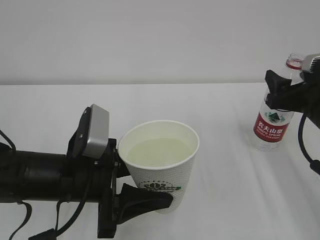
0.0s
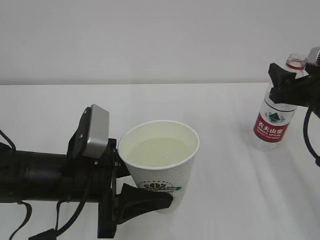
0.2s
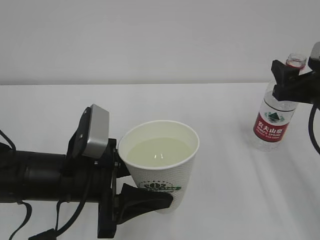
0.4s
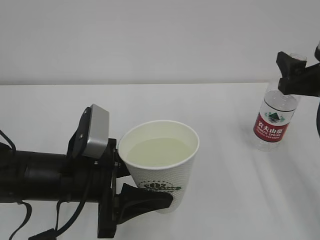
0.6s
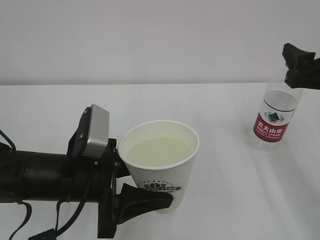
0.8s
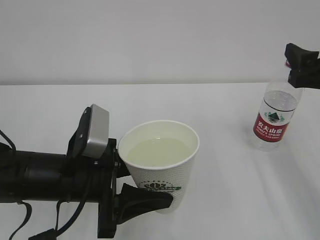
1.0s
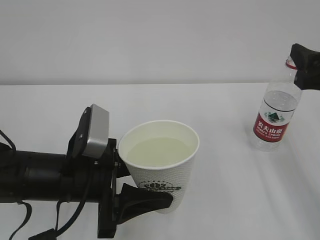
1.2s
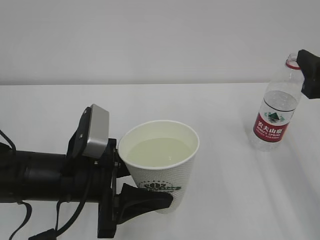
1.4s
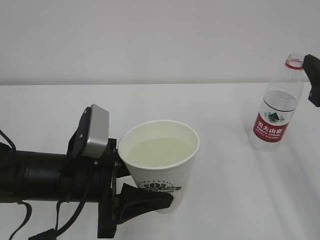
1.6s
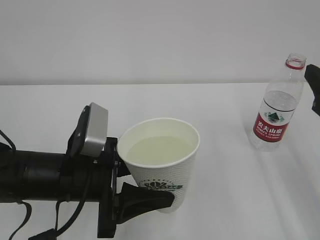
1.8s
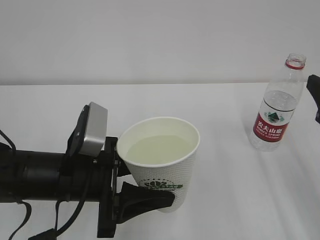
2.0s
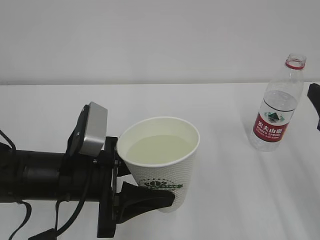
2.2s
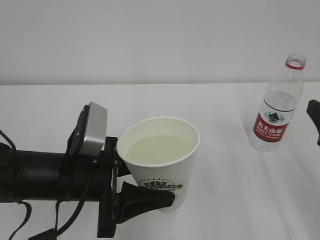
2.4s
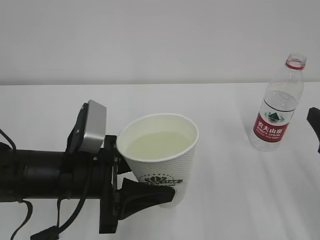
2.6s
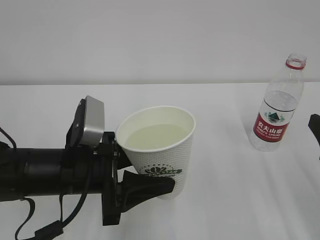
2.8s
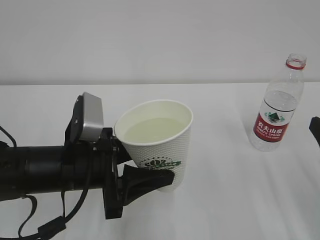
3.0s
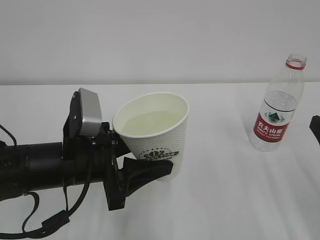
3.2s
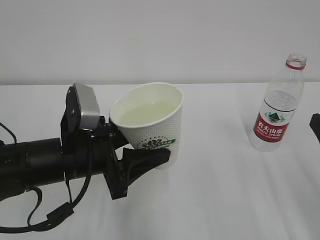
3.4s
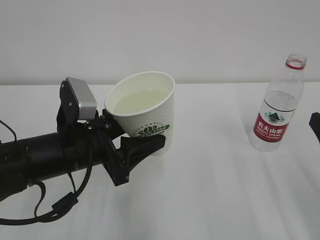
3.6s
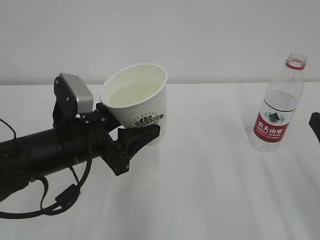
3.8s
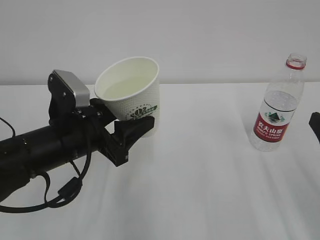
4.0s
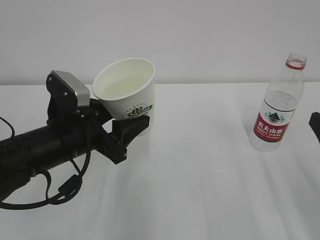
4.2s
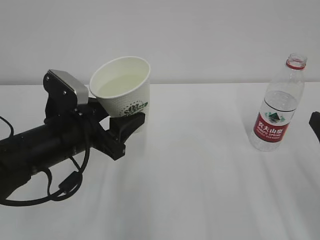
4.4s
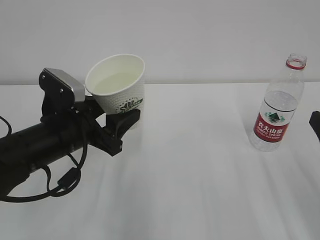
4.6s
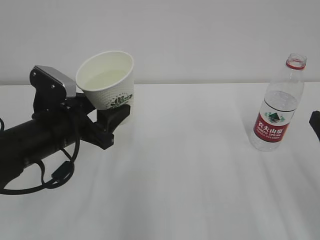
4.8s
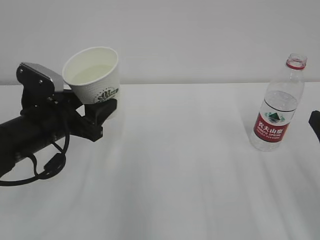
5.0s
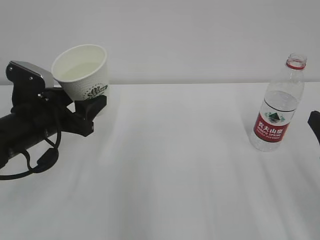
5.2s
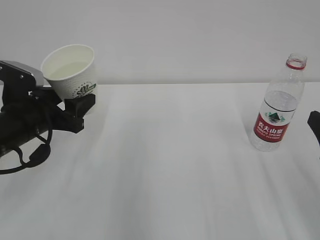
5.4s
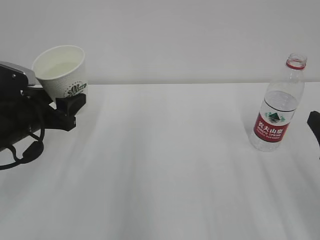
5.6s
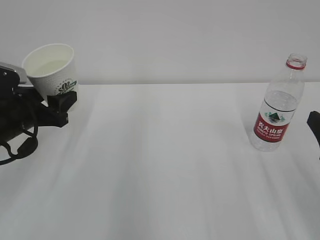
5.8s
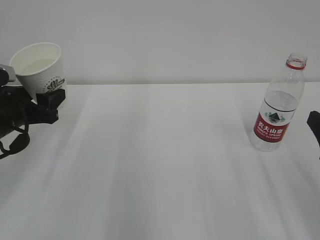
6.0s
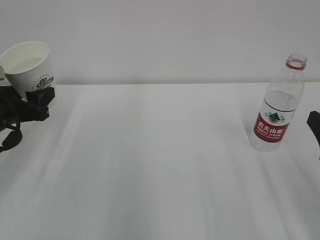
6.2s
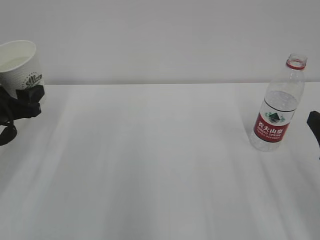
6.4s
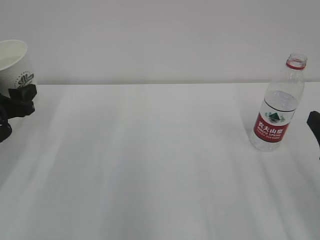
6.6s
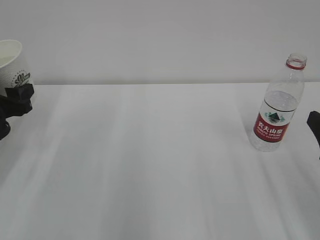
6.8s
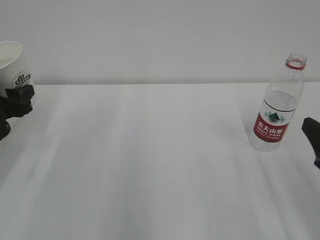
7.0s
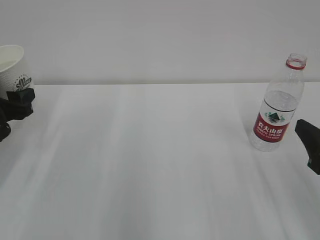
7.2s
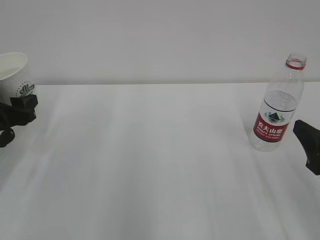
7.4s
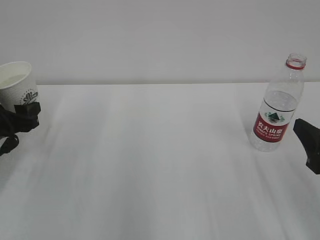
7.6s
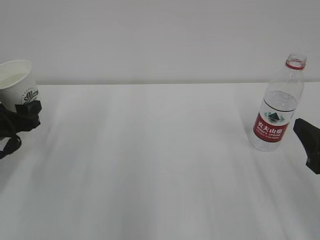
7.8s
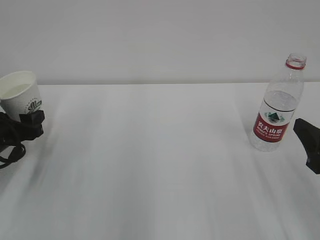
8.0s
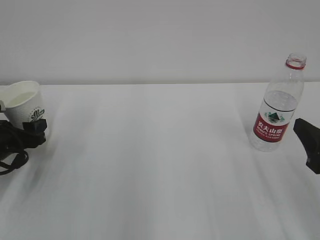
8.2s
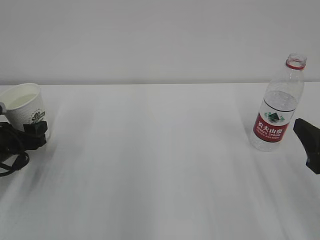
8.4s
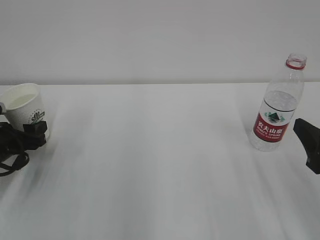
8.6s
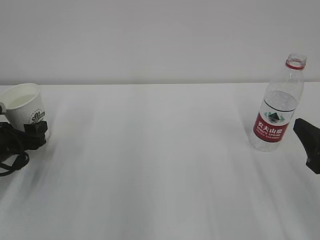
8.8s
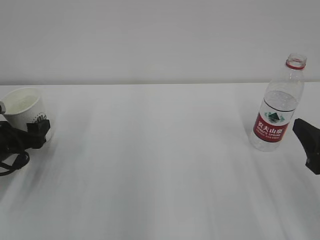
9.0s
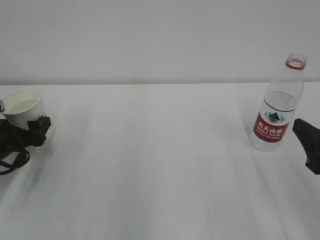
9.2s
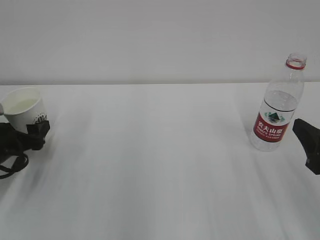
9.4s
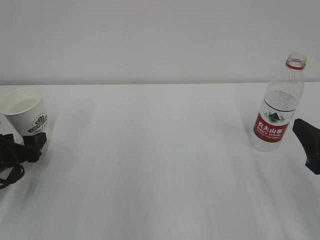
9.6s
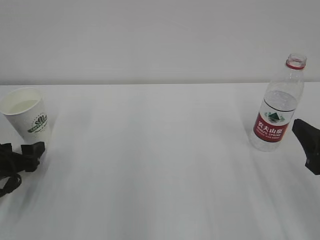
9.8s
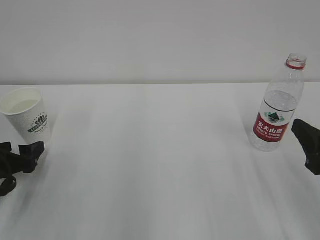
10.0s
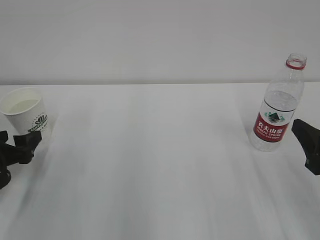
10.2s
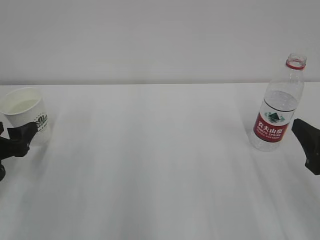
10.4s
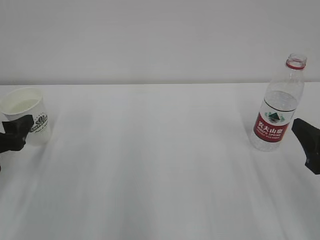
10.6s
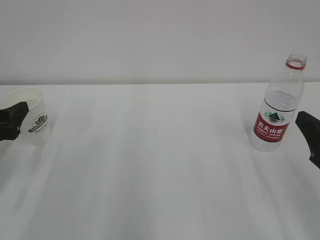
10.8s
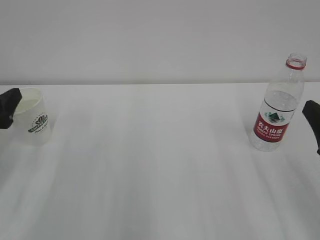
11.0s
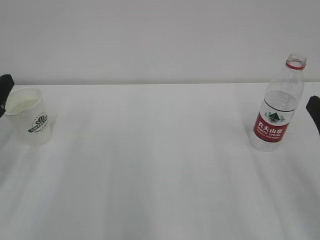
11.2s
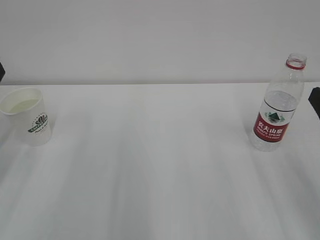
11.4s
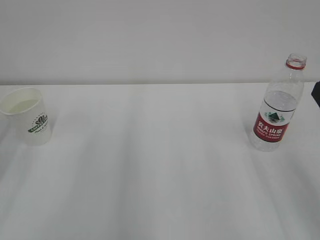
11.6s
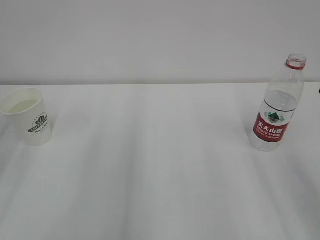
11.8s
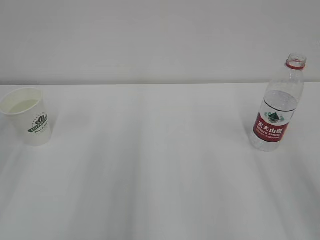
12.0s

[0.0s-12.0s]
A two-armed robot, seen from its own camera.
0.0s to 1.6s: The right gripper goes roughly 10 cm backward and upward.
1.6s to 3.0s: The right gripper is displaced backward and downward by some 10 cm.
4.4s to 6.0s: The left gripper moves to the left and forward, some 15 cm.
6.0s to 7.6s: The left gripper moves approximately 5 cm.
7.6s to 9.0s: The left gripper opens its fingers.
9.0s to 10.4s: The left gripper is displaced backward by about 5 cm.
10.4s to 12.0s: The left gripper moves upward and backward, about 20 cm; the right gripper goes approximately 5 cm upward.

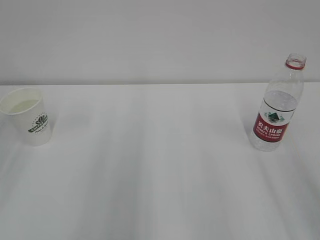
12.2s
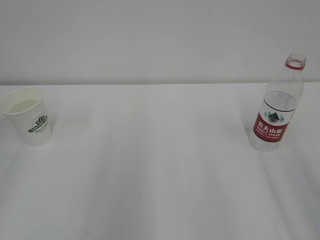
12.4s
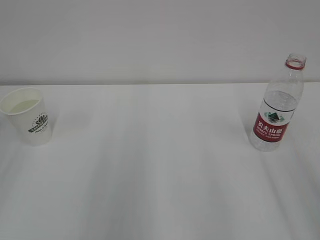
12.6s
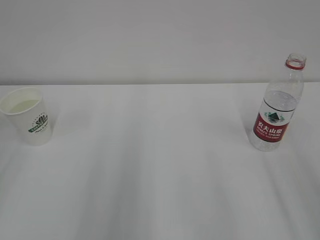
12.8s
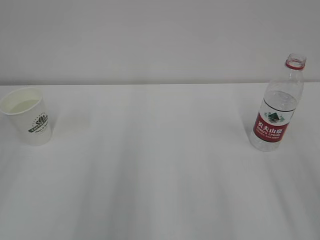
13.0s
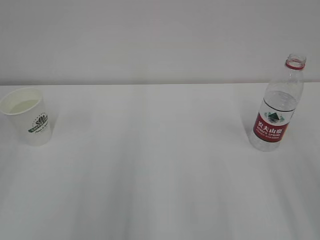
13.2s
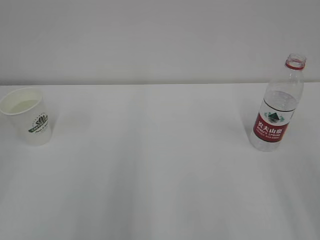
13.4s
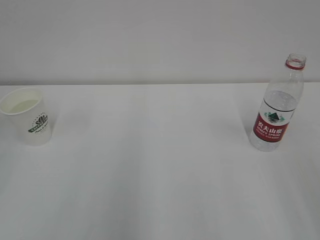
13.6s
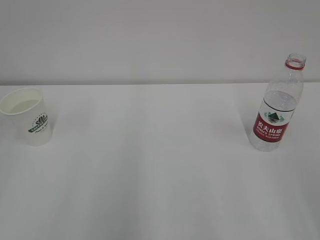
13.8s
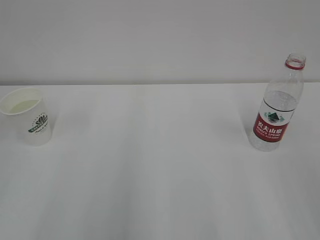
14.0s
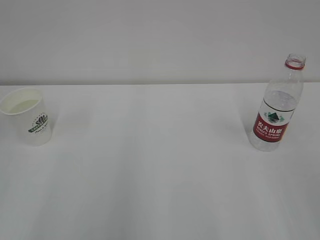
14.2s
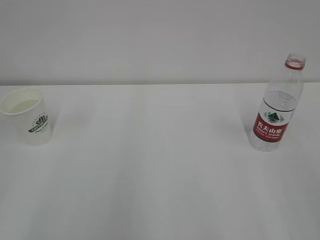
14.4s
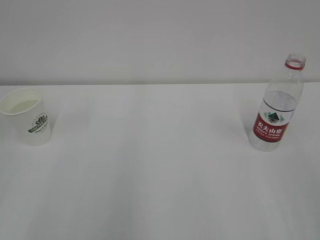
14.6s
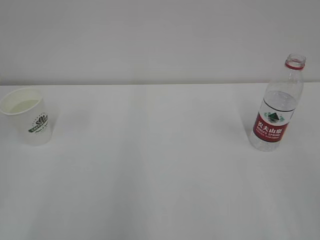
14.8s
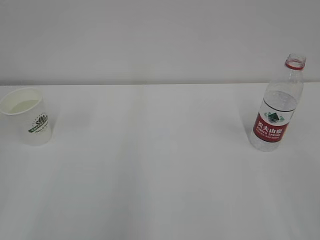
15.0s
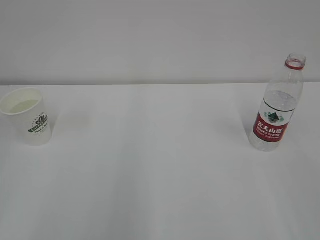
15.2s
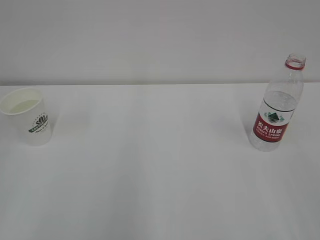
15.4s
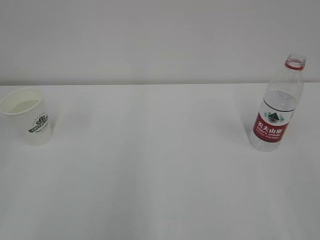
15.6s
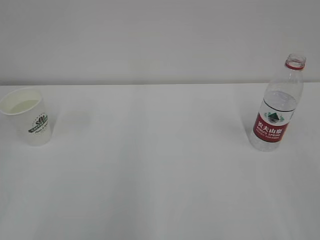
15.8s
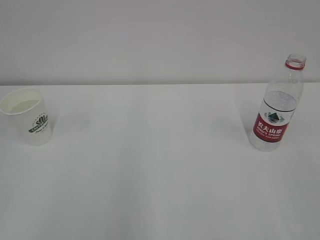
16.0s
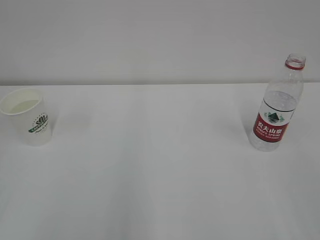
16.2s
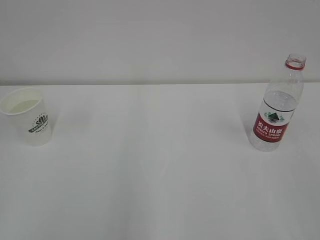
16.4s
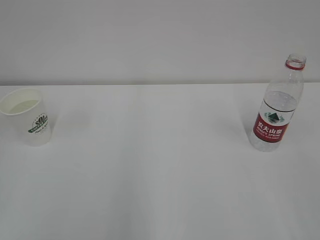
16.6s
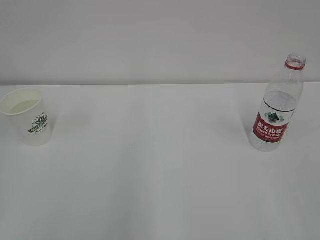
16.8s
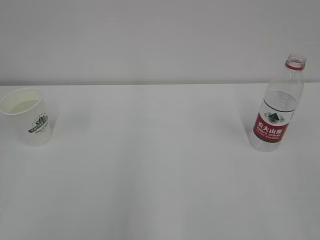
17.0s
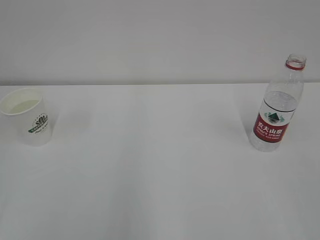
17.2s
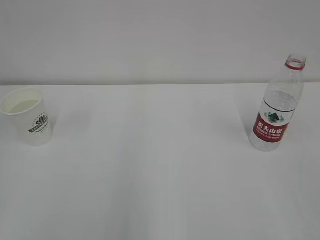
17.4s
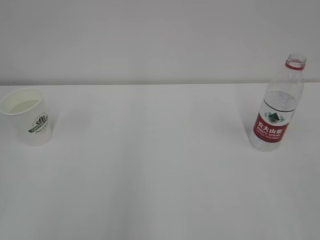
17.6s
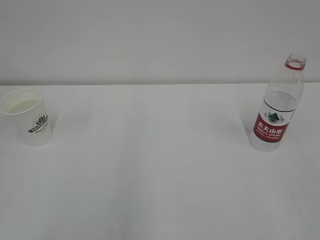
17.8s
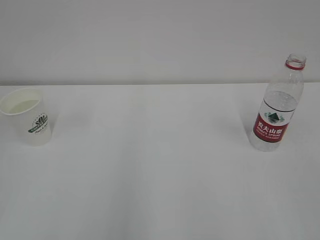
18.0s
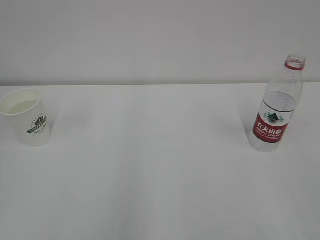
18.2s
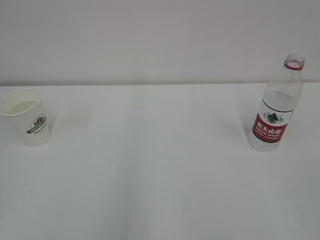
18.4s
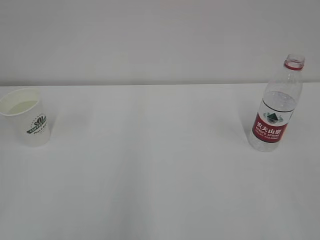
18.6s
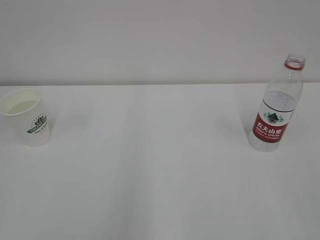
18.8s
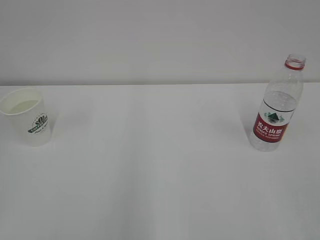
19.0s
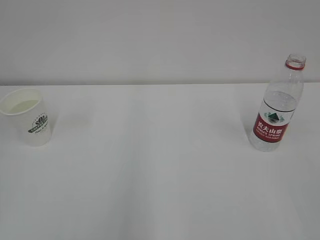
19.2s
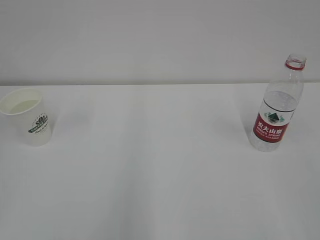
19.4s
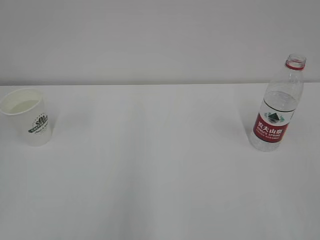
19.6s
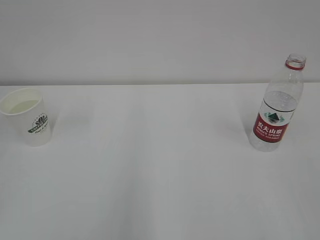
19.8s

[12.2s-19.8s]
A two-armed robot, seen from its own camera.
16.8s to 19.8s: Both grippers stay about where they are.

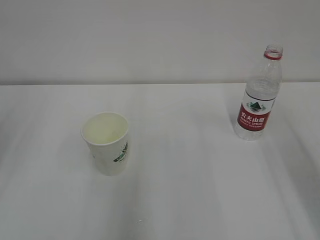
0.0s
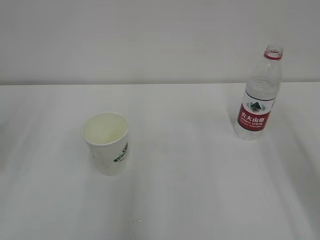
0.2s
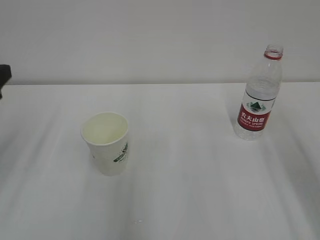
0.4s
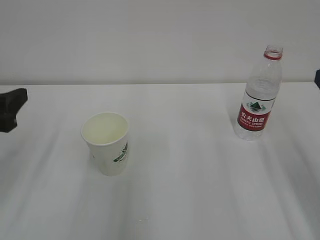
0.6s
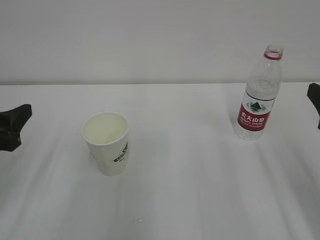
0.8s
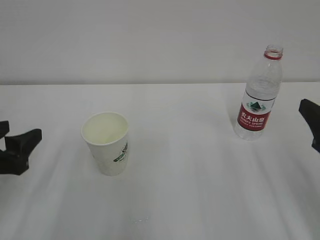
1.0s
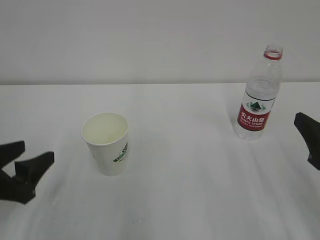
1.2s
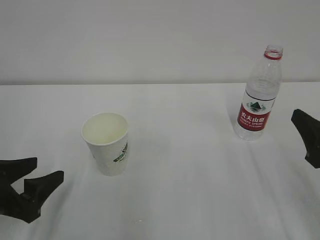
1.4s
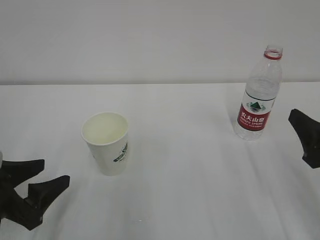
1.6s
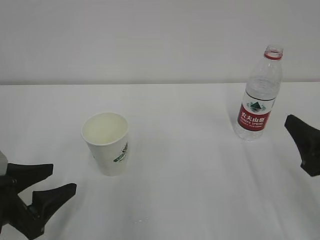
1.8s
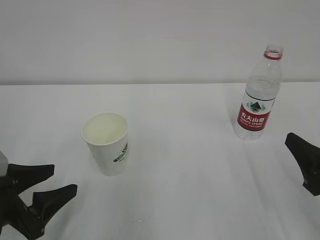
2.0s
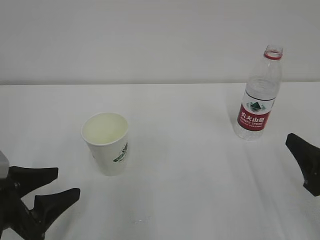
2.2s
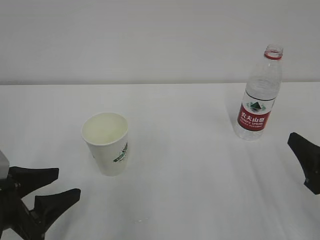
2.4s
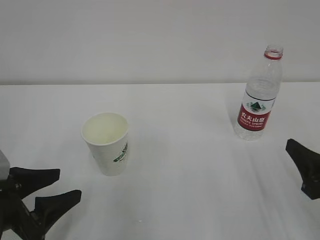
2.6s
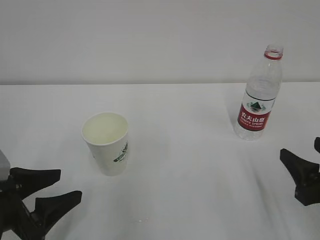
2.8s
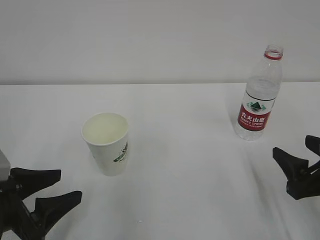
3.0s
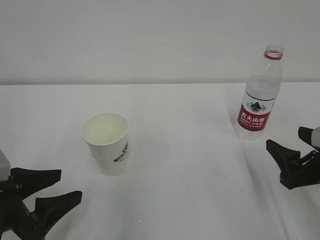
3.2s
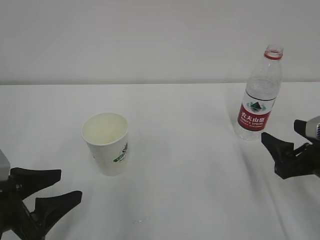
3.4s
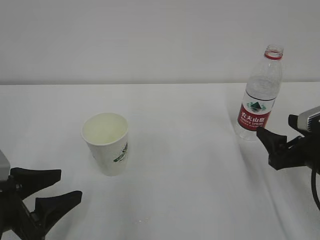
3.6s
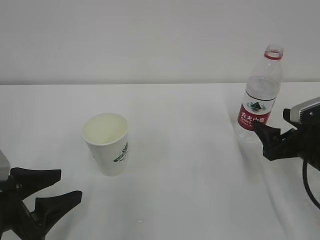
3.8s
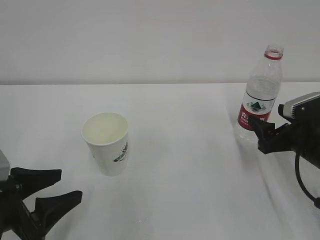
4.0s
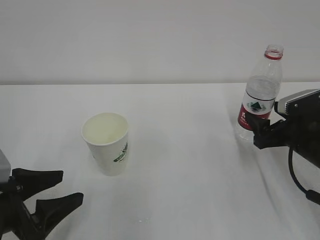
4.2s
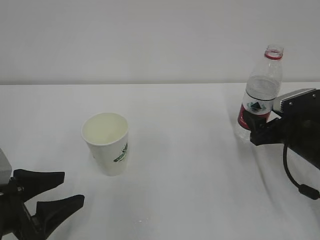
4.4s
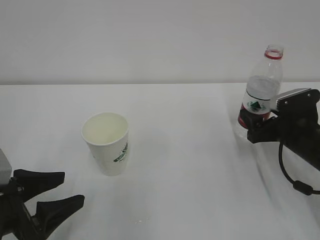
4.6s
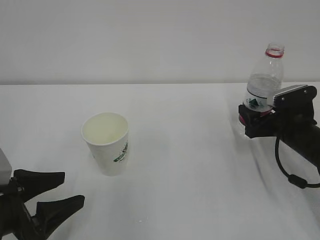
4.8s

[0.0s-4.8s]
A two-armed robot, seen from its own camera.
0.0s to 1.6s: The grippers both shift downward by approximately 15 cm.
1.6s to 3.2s: The right gripper moves downward, approximately 5 cm.
3.2s to 4.8s: The right gripper shifts about 15 cm forward.
